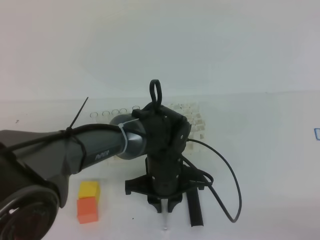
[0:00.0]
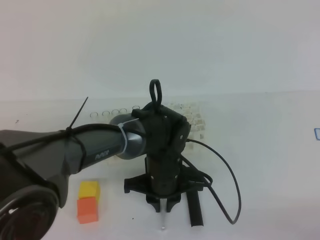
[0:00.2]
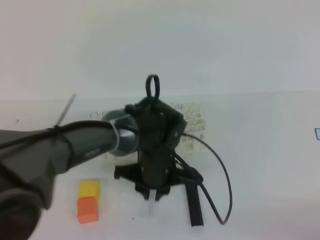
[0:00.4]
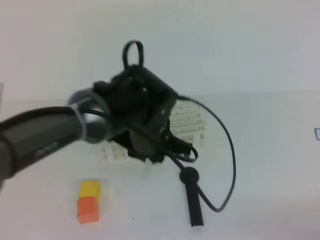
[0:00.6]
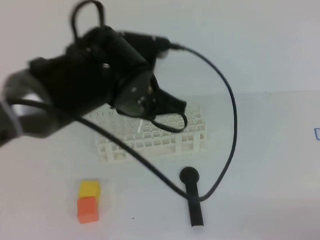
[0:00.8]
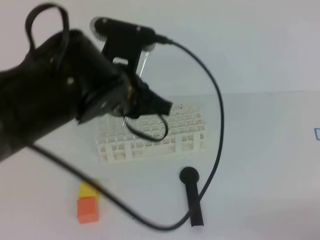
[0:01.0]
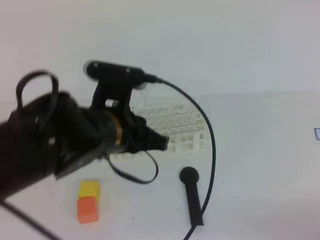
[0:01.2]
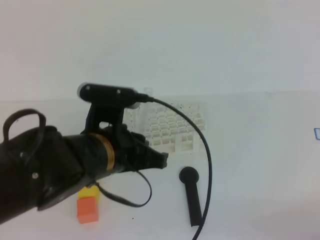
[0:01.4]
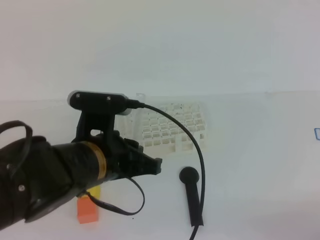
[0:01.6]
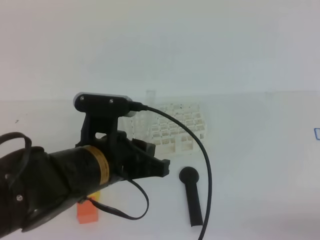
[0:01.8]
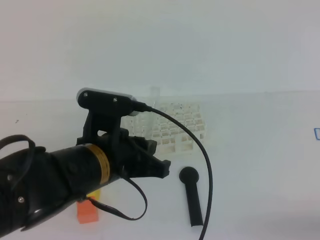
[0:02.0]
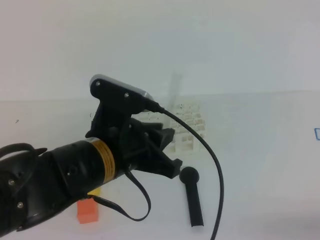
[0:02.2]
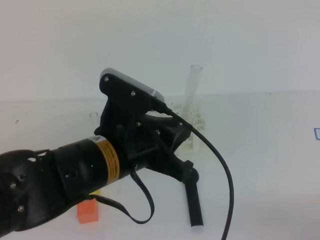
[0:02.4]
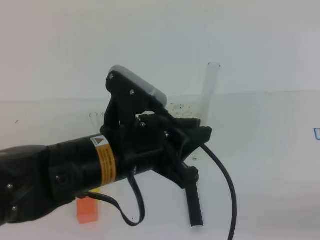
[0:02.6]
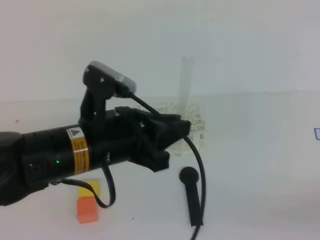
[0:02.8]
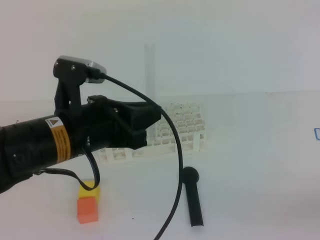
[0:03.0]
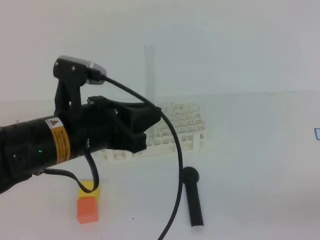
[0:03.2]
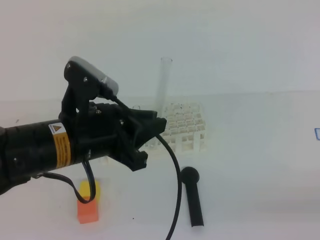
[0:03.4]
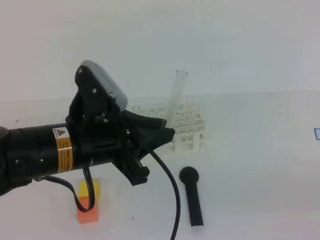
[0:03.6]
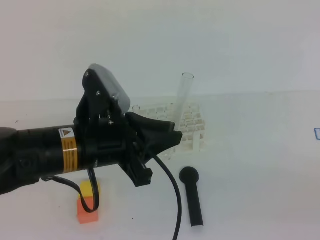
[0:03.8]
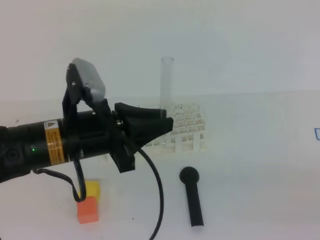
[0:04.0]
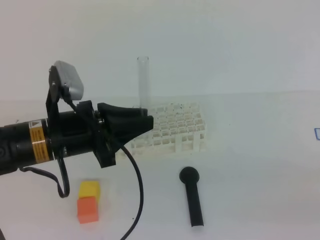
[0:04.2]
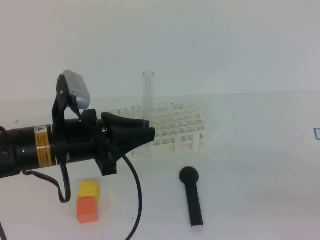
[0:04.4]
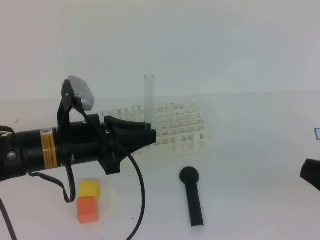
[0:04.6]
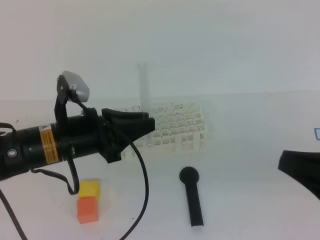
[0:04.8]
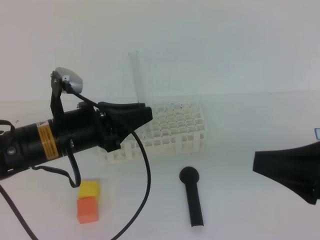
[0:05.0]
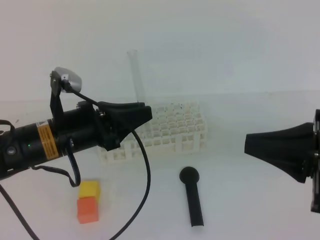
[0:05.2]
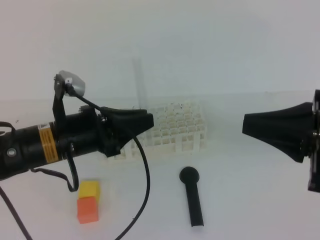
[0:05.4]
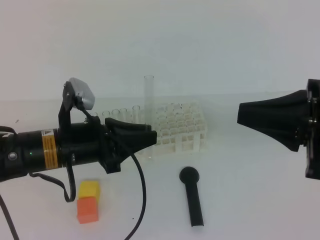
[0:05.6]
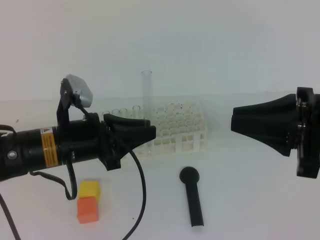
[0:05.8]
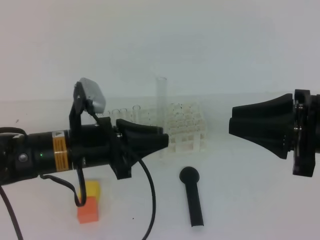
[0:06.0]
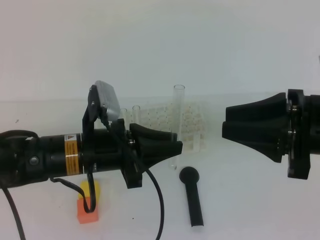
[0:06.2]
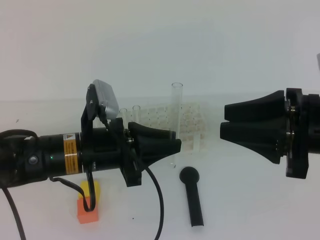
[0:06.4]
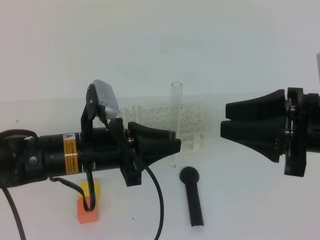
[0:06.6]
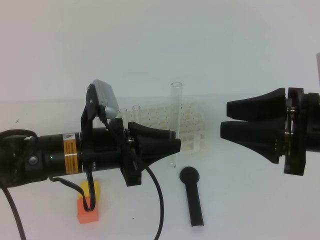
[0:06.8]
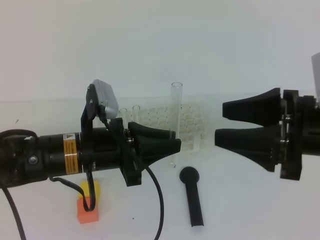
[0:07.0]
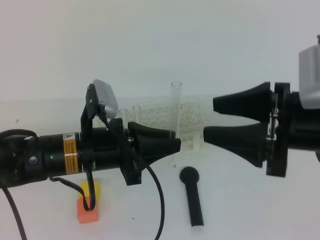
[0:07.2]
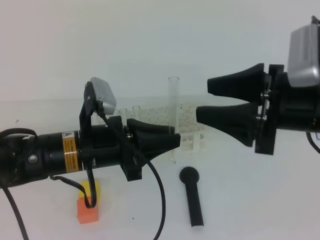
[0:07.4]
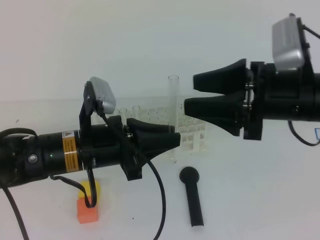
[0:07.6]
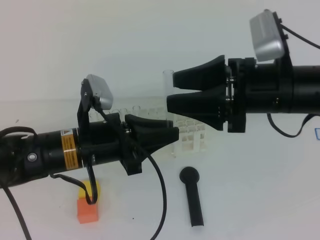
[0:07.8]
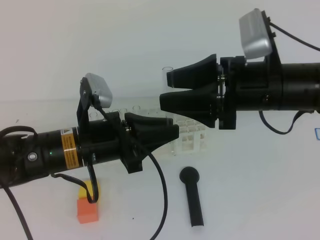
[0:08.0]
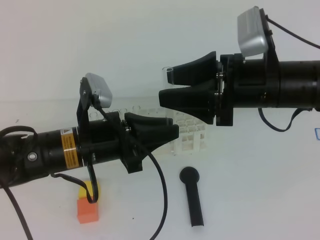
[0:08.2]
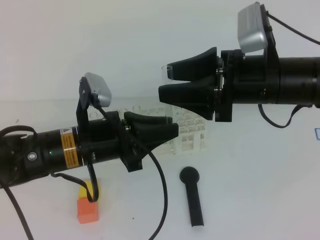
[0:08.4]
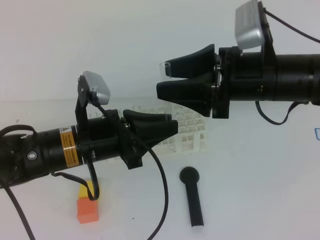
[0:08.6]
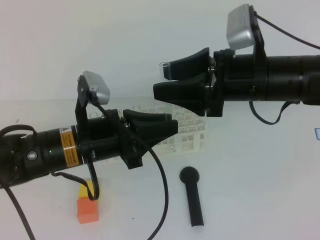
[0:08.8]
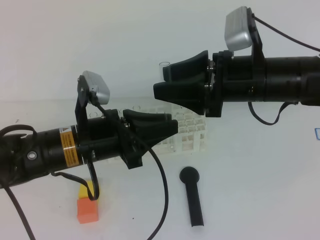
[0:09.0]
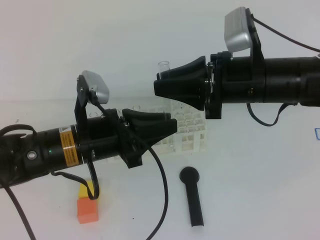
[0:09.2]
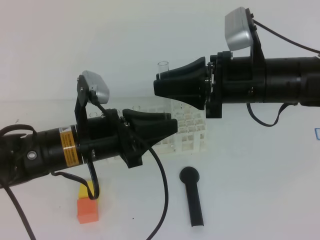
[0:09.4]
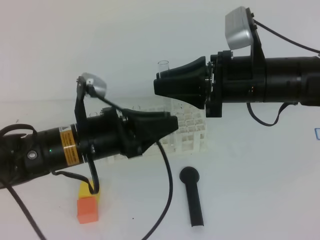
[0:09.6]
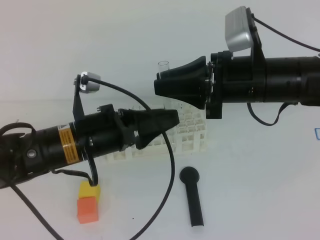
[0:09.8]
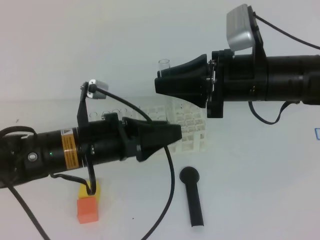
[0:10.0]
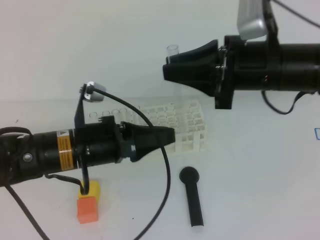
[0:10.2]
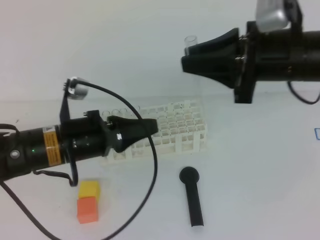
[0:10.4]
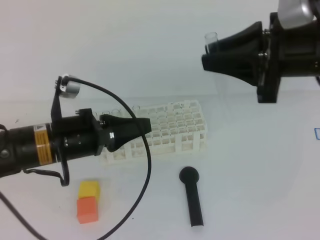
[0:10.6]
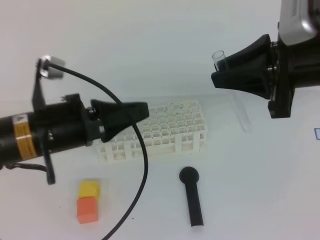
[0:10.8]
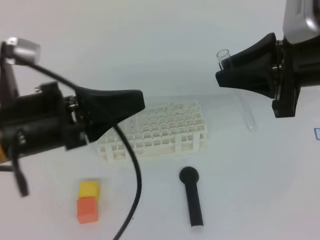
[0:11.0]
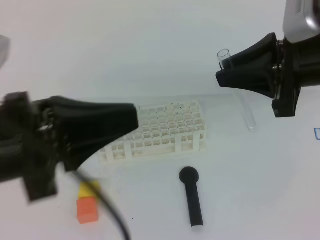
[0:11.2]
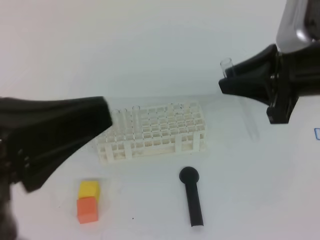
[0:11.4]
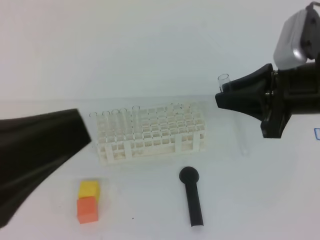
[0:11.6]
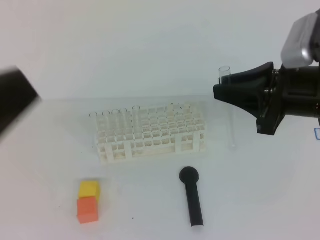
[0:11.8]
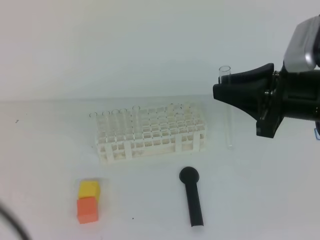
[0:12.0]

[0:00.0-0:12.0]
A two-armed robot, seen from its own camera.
0:00.0 to 0:01.6: The left gripper heads upward, backward and to the left, covering some 20 cm.
0:03.0 to 0:04.4: The right gripper shifts roughly 5 cm upward. The left gripper changes place by about 5 cm.
0:04.4 to 0:06.0: The right gripper is displaced forward and to the left by approximately 15 cm, and opens its fingers.
0:06.0 to 0:07.6: The right gripper shifts by about 5 cm, and opens its fingers.
0:07.6 to 0:09.0: The right gripper heads forward, covering some 5 cm.
0:09.0 to 0:10.4: The right gripper moves roughly 5 cm, and closes its fingers, while the left gripper opens, then closes once more.
0:10.4 to 0:12.0: The right gripper ends up approximately 5 cm from where it was. The left gripper moves backward, upward and to the left, roughly 25 cm.

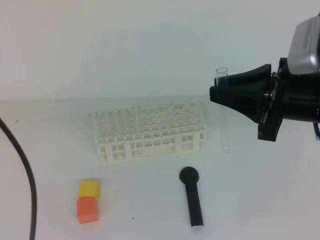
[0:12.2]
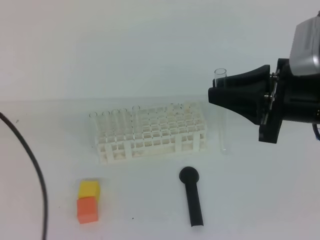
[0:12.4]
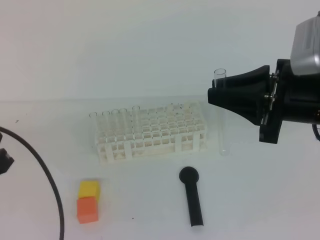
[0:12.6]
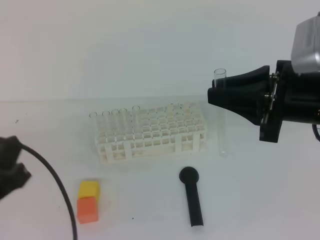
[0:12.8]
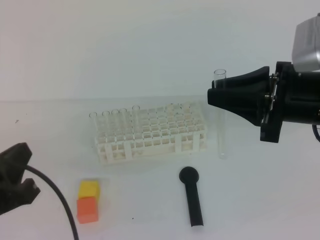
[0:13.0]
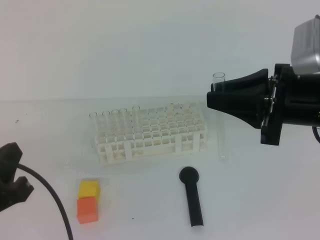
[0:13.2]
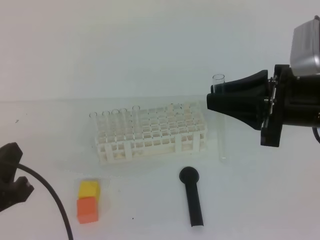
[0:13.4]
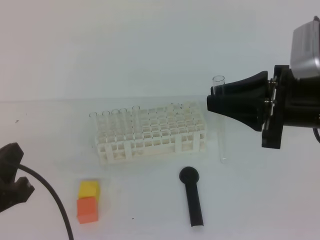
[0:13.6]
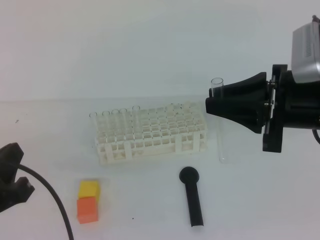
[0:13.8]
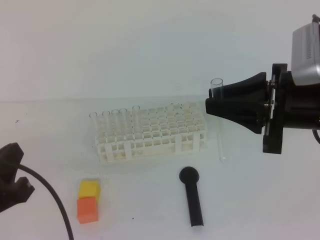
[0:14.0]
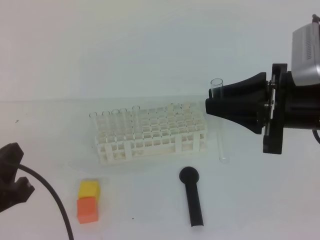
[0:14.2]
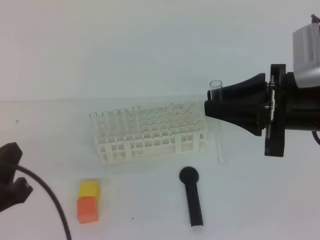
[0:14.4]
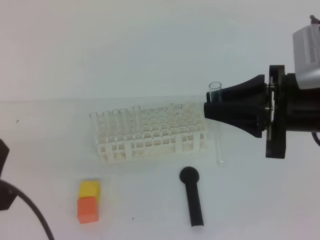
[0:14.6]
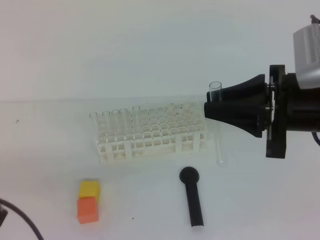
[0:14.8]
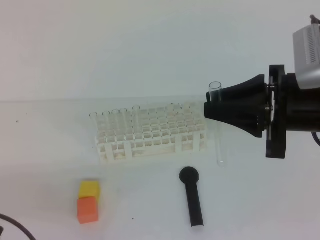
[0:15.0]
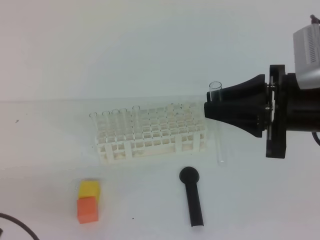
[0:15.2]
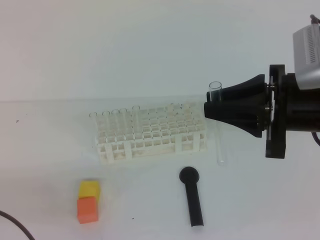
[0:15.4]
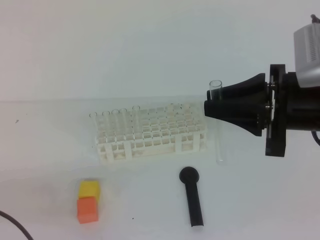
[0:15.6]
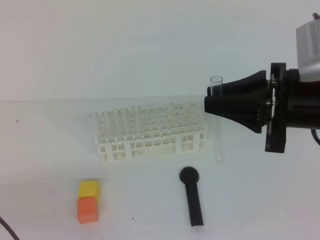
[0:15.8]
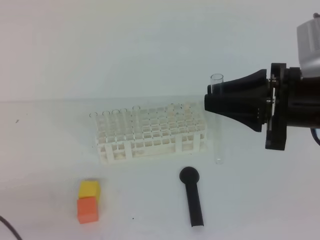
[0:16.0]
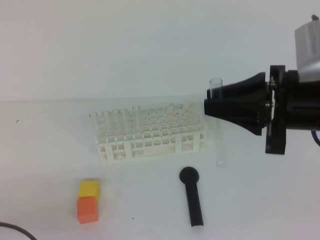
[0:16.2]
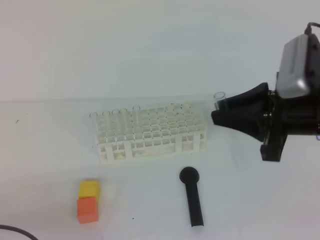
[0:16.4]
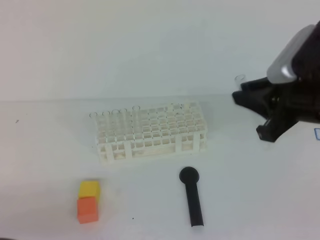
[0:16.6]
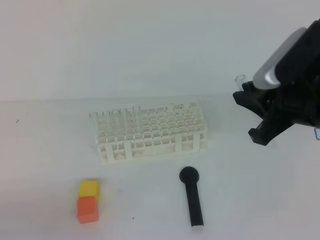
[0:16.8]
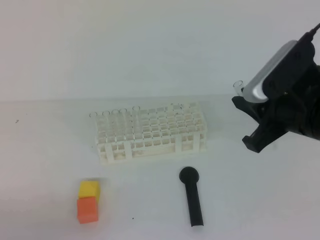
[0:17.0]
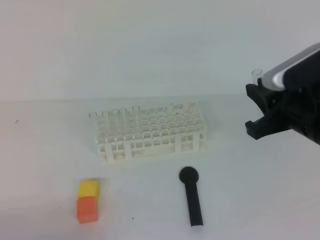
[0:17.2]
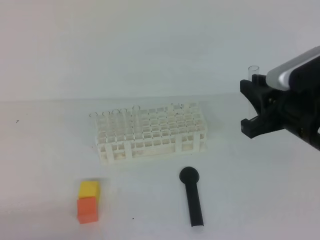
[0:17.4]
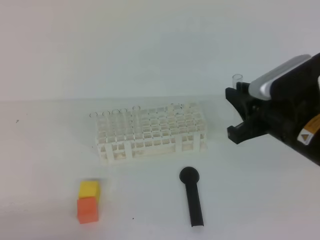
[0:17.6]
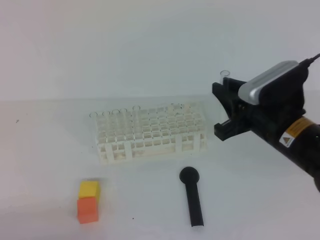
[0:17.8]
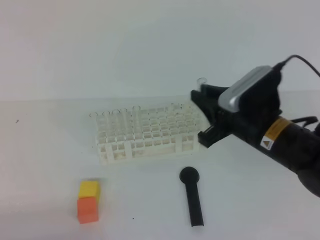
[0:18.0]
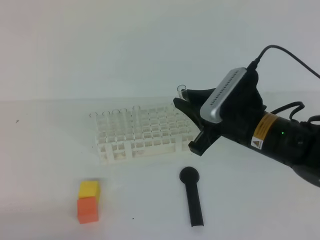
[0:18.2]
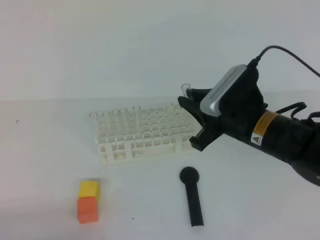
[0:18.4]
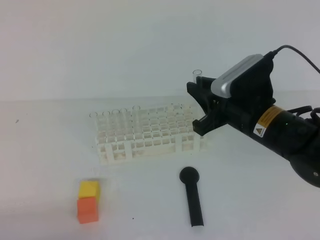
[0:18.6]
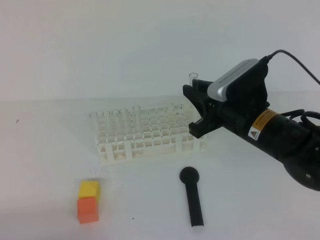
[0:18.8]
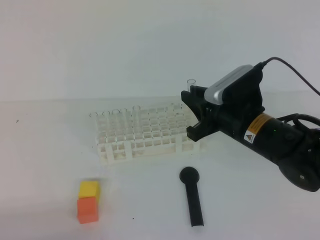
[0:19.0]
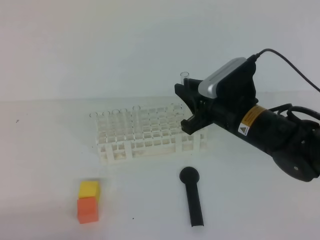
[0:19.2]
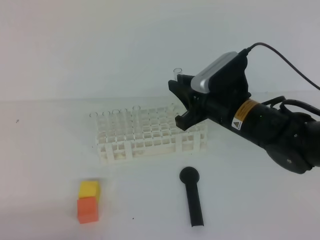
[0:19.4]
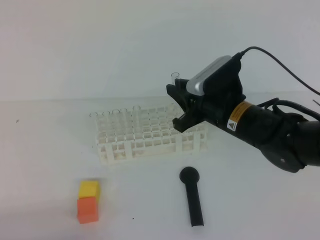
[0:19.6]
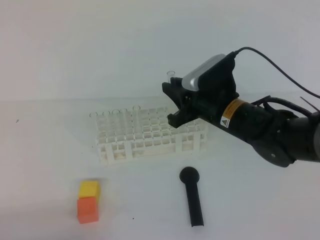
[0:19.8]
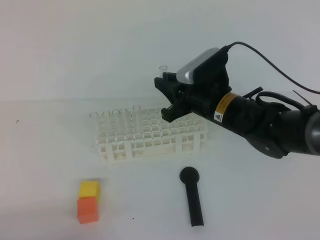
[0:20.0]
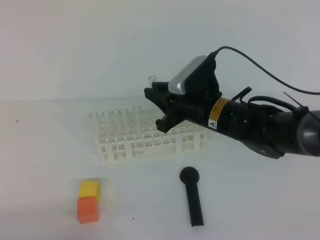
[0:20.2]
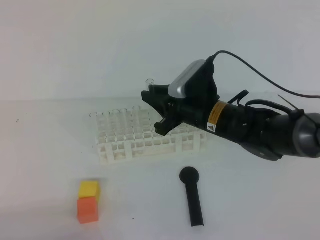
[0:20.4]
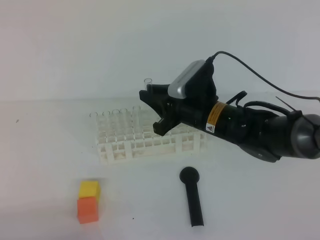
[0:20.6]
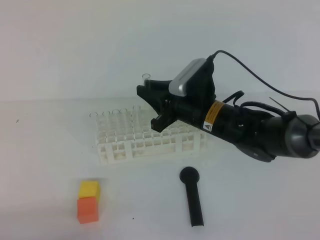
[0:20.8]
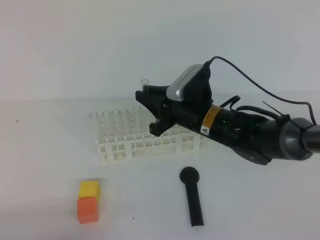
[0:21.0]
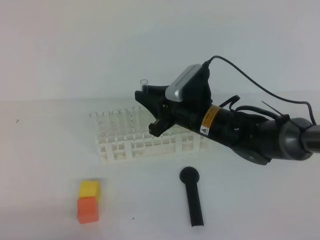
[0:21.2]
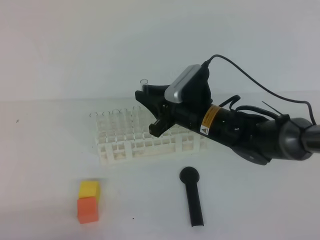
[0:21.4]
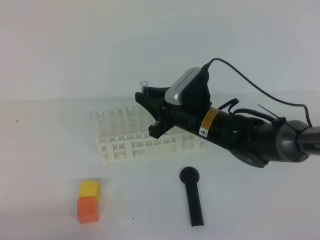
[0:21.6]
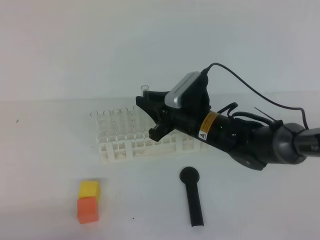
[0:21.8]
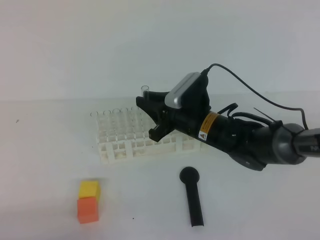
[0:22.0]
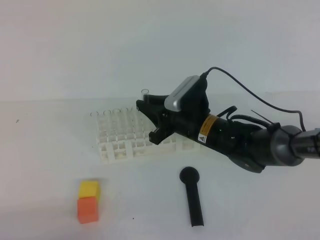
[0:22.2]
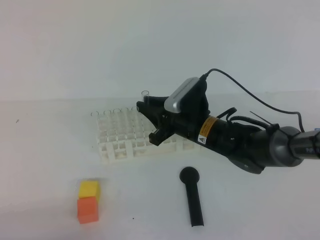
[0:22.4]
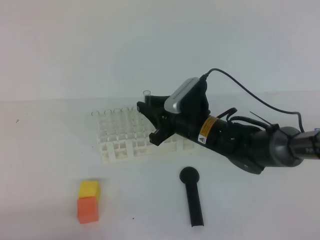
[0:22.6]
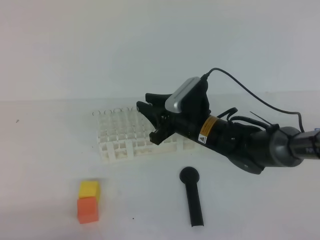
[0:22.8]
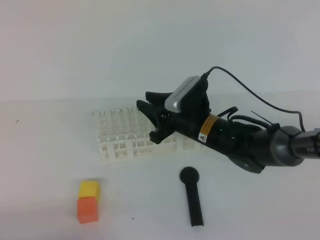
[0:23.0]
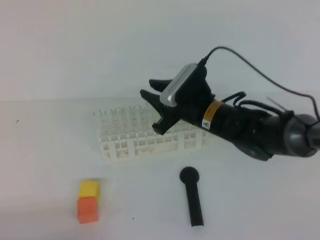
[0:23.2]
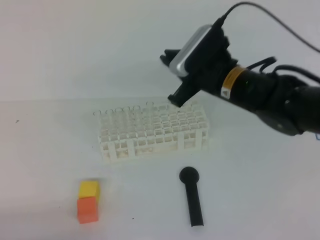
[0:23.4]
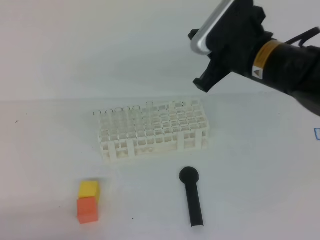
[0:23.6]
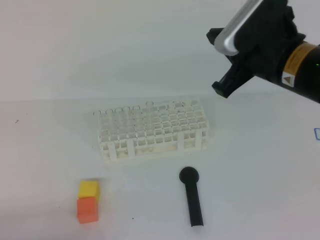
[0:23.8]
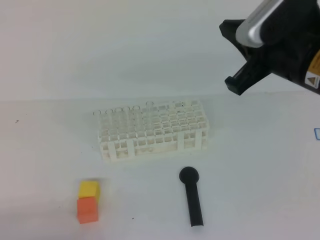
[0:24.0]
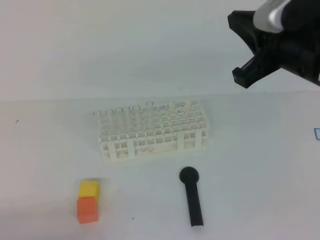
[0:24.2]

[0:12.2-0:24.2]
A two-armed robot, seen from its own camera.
0:12.2 to 0:13.8: The left gripper is displaced downward by about 10 cm.
0:13.8 to 0:15.2: The left gripper heads downward, covering roughly 5 cm.
0:16.6 to 0:18.2: The right gripper goes about 10 cm downward and to the left.
0:18.2 to 0:19.8: The right gripper goes approximately 5 cm forward.
0:19.8 to 0:21.2: The grippers make only small movements.
0:21.2 to 0:22.6: The grippers make only small movements.
0:22.6 to 0:24.2: The right gripper heads upward, to the right and backward, covering some 25 cm, and closes up.
